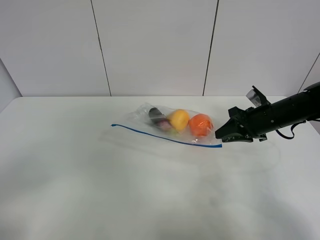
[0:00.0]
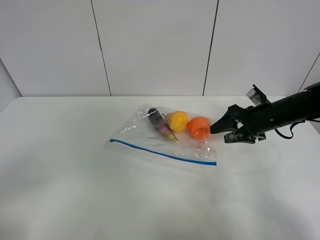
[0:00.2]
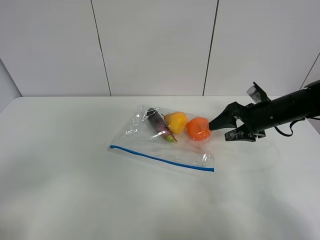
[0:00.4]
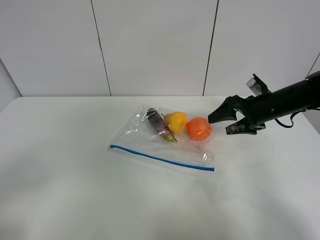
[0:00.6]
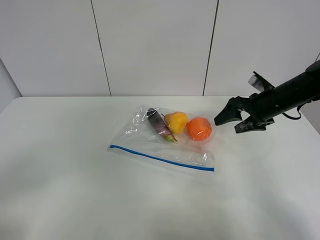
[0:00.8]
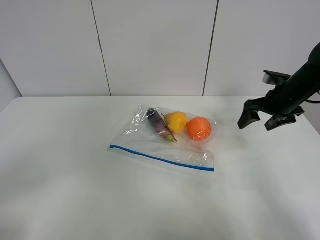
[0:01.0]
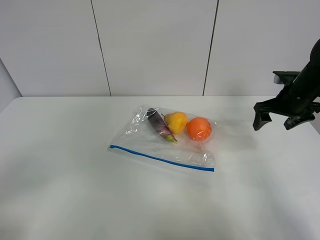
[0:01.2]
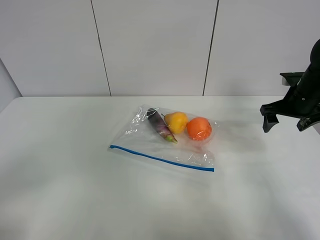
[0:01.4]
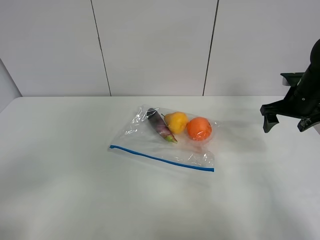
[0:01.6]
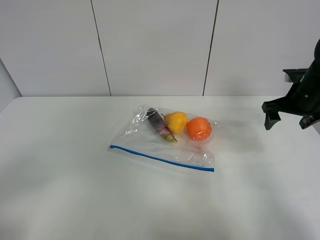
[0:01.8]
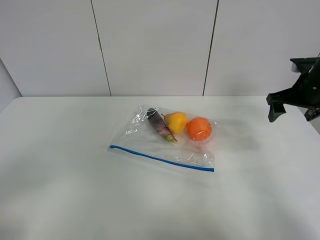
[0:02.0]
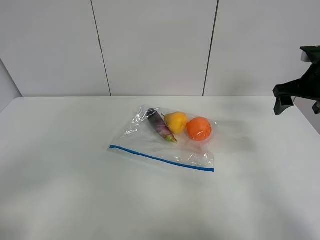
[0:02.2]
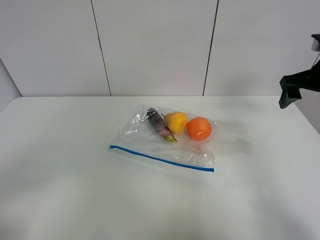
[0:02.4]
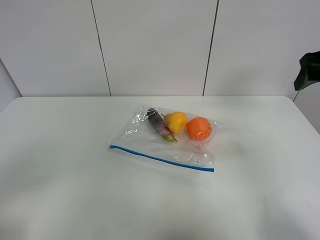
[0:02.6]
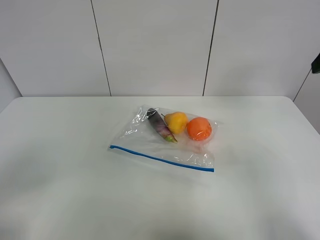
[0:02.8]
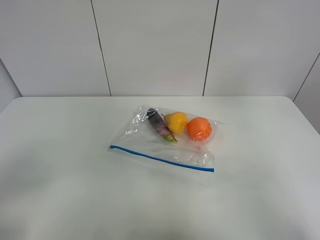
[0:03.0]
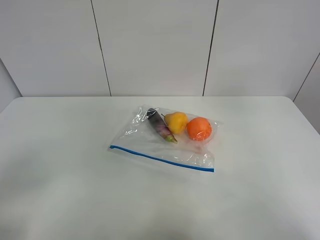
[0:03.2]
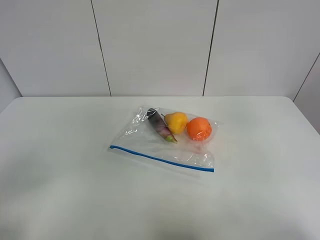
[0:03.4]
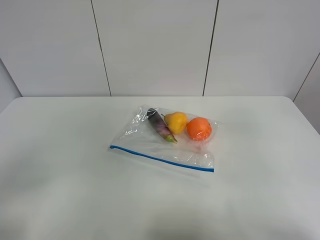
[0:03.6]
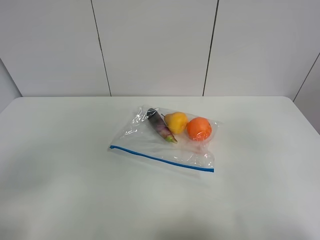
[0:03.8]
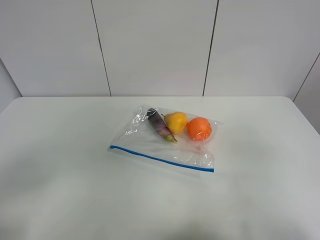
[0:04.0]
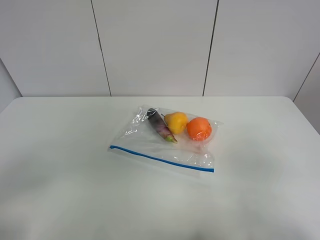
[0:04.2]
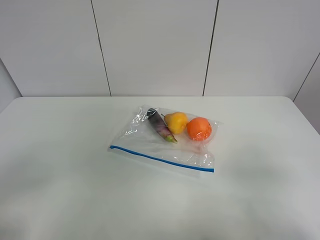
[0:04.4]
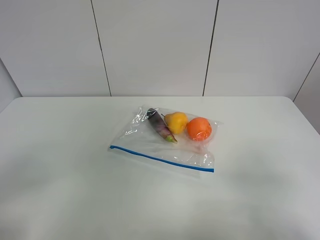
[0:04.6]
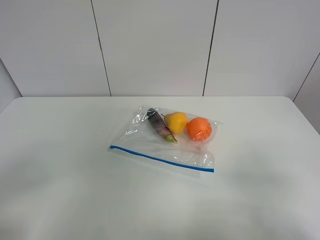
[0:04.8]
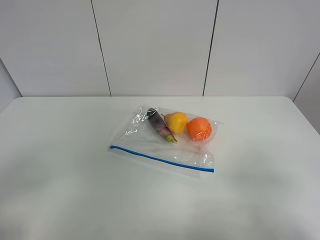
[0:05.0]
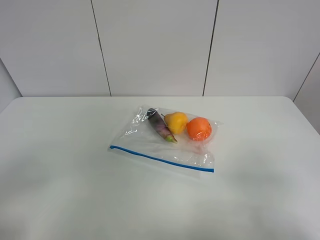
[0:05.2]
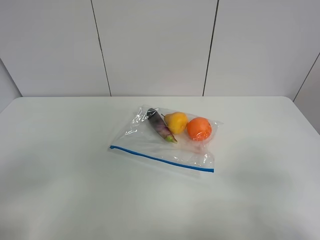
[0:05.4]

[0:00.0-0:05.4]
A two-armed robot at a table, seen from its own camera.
0:00.0 to 0:01.4: The right gripper shifts some 5 cm to the right, and opens its fingers.
0:01.4 to 0:02.8: The right gripper heads upward and backward, covering about 20 cm.
0:02.8 to 0:04.0: The right gripper heads backward, covering roughly 20 cm.

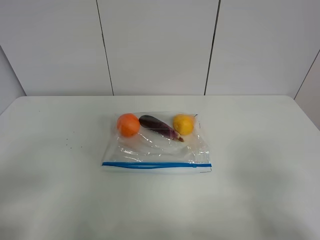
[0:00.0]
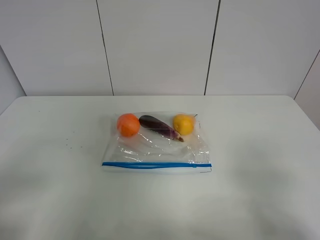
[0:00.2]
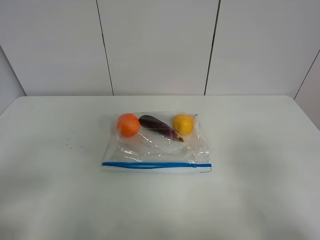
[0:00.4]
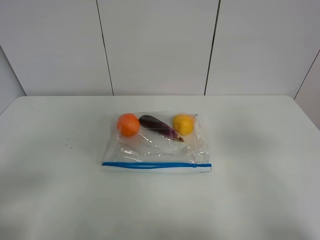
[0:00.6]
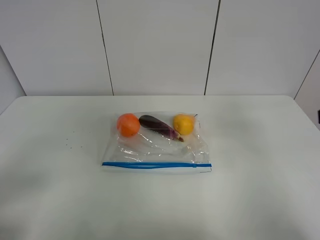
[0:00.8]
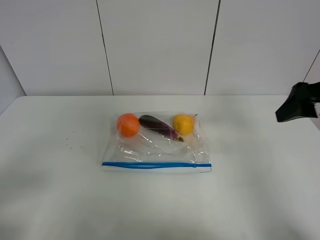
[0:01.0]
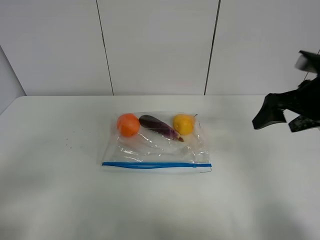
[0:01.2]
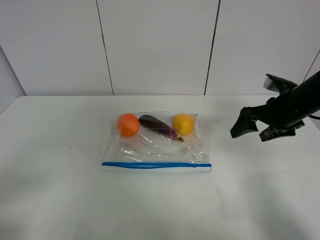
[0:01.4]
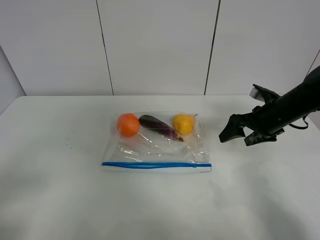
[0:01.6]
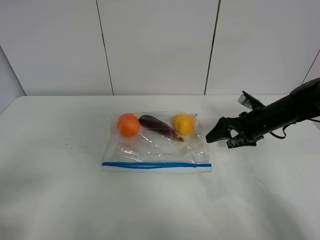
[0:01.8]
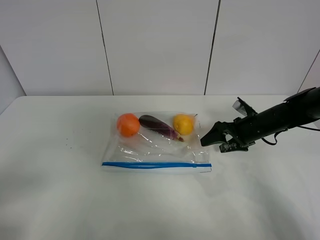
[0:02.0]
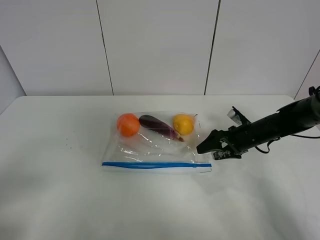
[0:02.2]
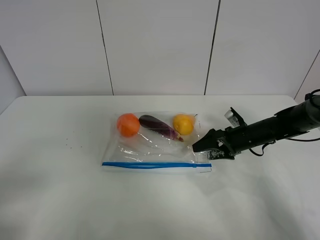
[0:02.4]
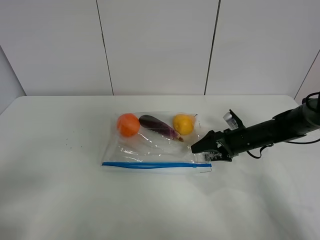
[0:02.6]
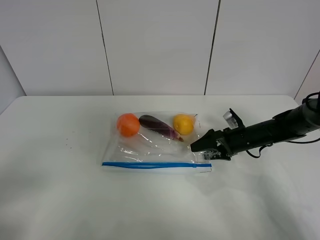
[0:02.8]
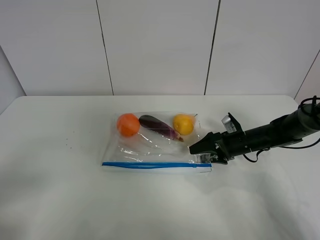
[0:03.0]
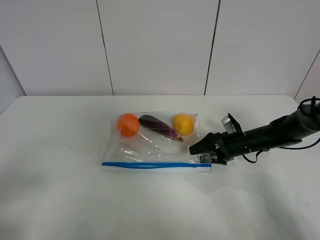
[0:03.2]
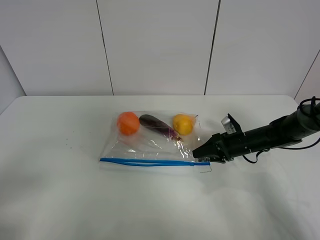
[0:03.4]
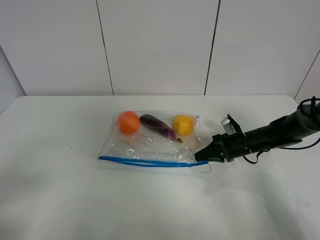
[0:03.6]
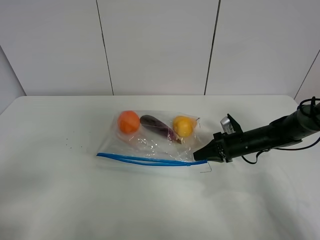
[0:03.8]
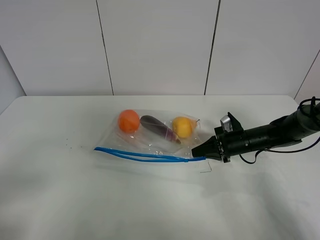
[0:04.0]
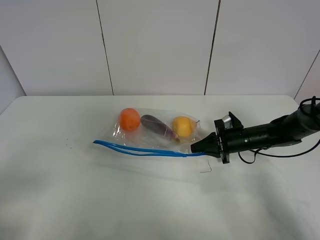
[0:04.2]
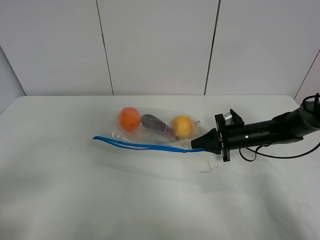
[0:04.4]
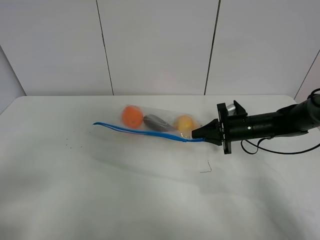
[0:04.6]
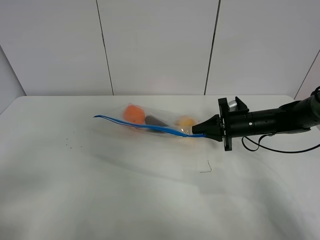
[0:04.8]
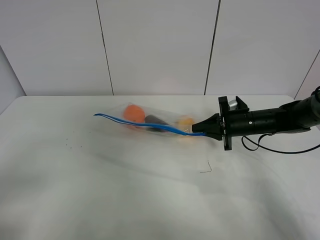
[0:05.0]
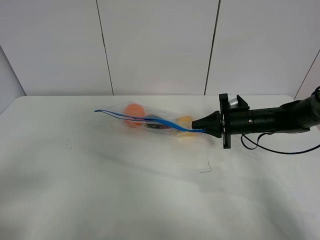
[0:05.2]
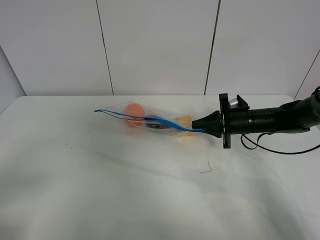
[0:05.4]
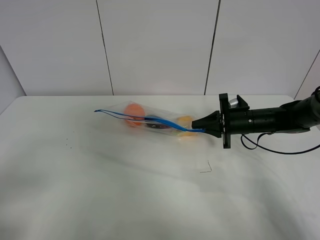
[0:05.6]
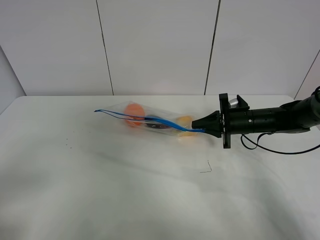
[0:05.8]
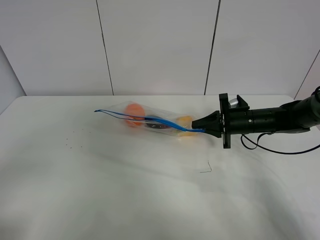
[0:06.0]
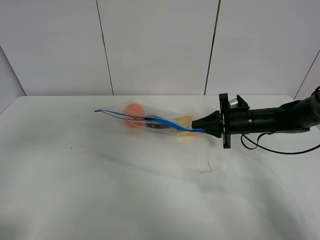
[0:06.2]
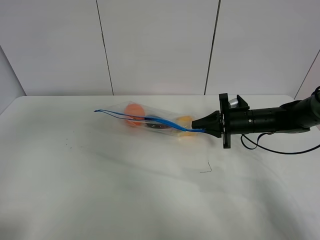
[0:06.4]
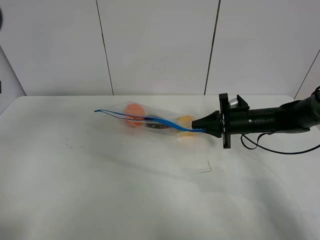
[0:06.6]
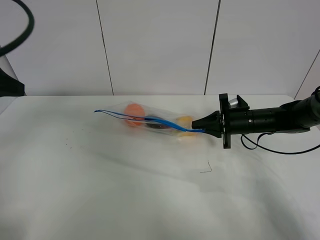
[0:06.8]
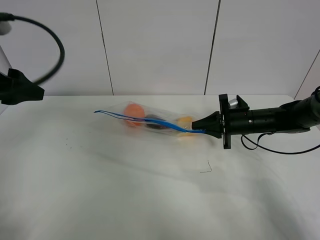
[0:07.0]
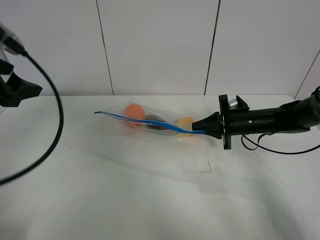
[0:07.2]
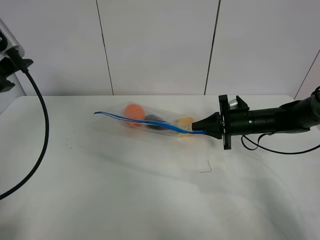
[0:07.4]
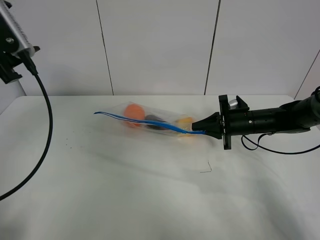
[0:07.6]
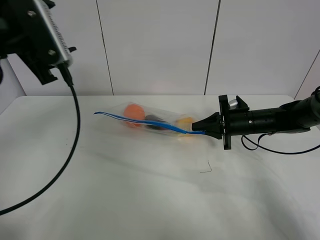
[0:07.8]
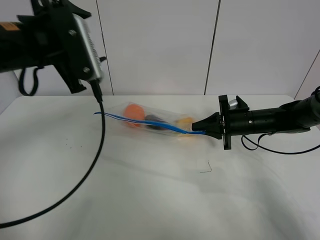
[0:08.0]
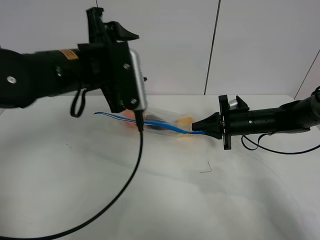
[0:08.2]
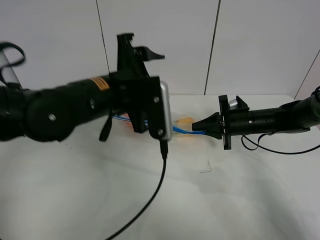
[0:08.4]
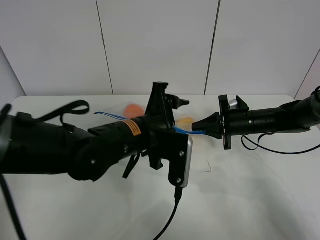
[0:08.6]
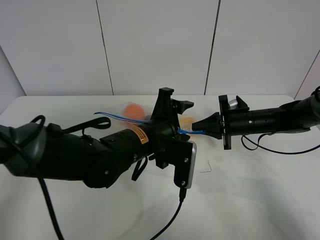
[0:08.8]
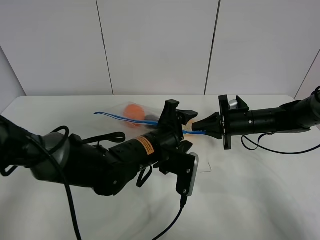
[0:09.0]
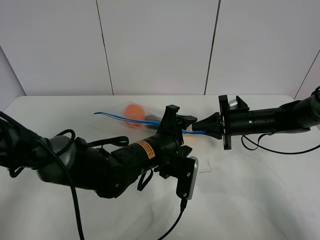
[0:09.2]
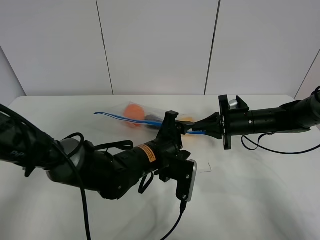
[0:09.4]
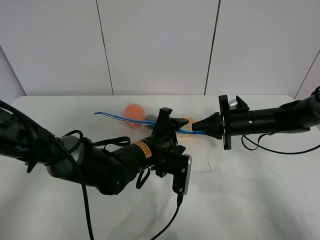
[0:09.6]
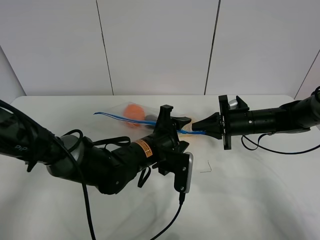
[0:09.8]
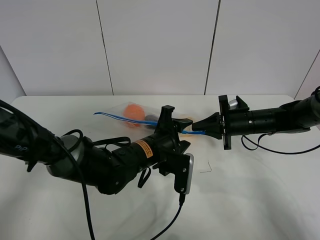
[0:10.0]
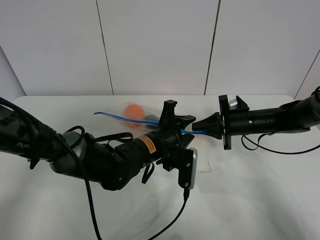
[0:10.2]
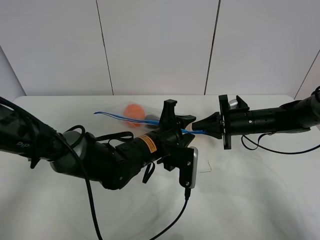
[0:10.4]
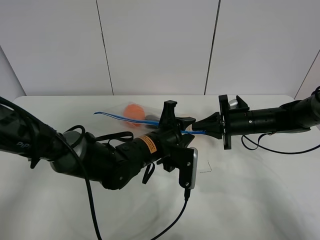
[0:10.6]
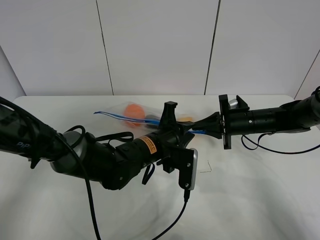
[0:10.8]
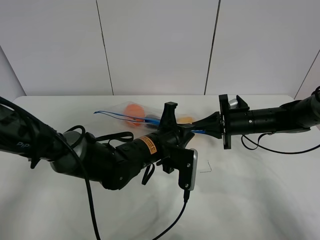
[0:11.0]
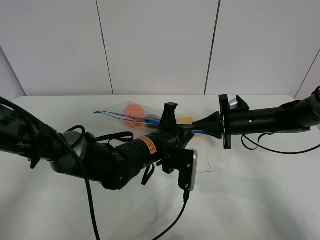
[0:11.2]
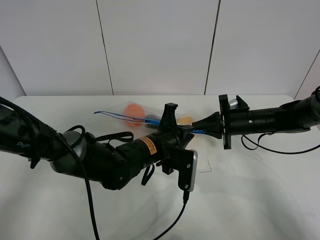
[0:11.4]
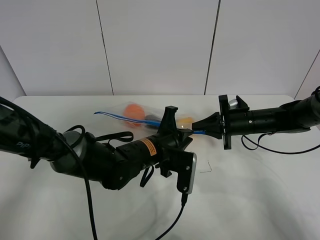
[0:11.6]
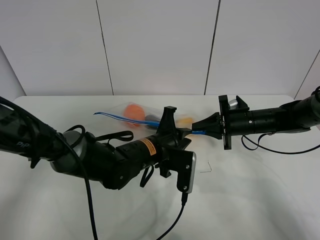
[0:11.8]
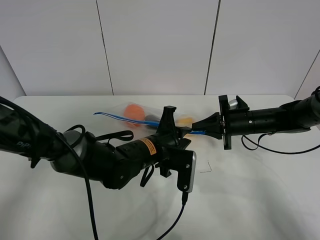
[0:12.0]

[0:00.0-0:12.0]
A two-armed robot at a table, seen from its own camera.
Step, 0:00.0 to 0:03.6: Grasp the fruit bag with right gripper.
Step, 0:03.8 to 0:05.6: Lift the fruit bag with your right gripper.
0:00.0 to 0:01.6: The right gripper heads forward, covering some 35 cm.
0:01.6 to 0:03.0: The right gripper heads downward, covering some 10 cm.
0:03.0 to 0:04.4: The right gripper closes its fingers.
0:04.4 to 0:06.0: The grippers stay close to where they were, moving slightly.
0:06.0 to 0:07.6: The left gripper shifts about 25 cm forward.
0:07.6 to 0:09.0: The left gripper is displaced to the right and downward by approximately 35 cm.
0:09.0 to 0:10.4: The left gripper closes its fingers.
0:10.4 to 0:12.0: The grippers stay close to where they were, moving slightly.

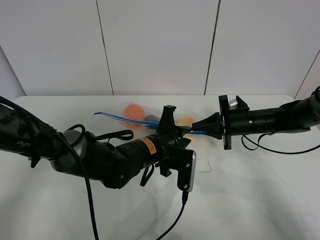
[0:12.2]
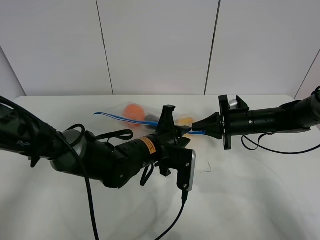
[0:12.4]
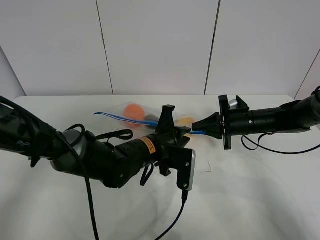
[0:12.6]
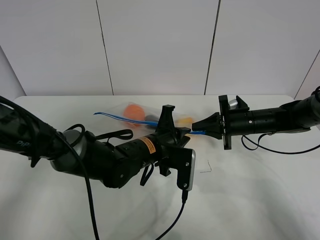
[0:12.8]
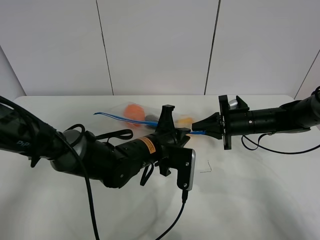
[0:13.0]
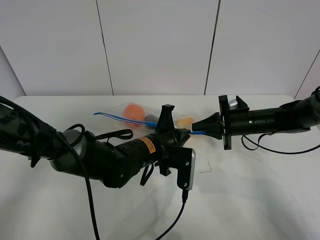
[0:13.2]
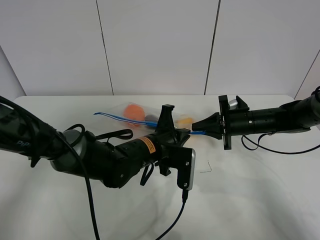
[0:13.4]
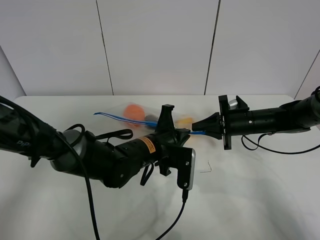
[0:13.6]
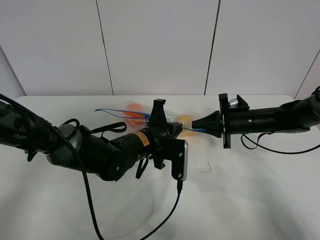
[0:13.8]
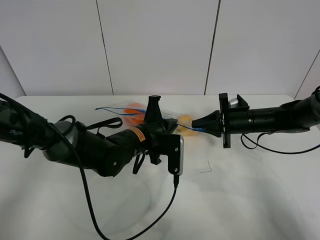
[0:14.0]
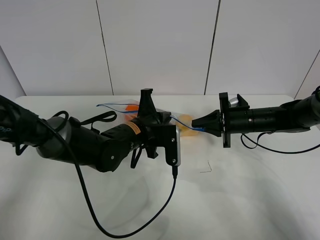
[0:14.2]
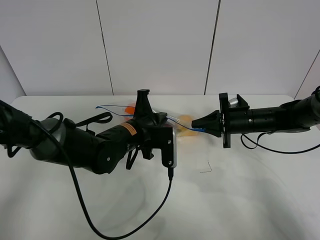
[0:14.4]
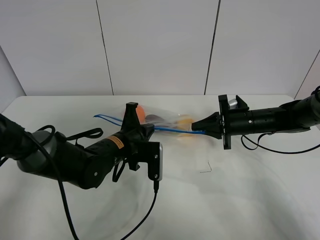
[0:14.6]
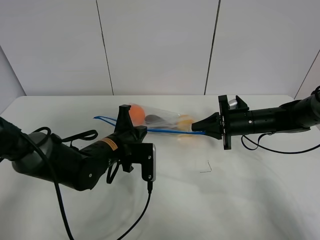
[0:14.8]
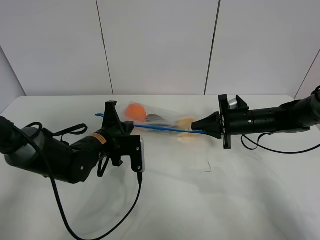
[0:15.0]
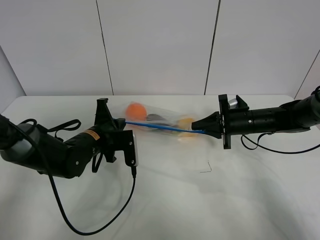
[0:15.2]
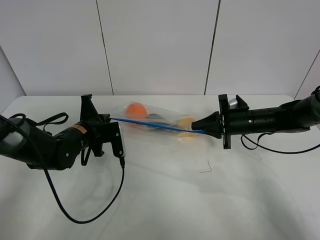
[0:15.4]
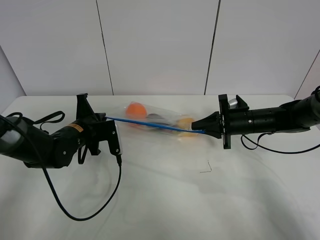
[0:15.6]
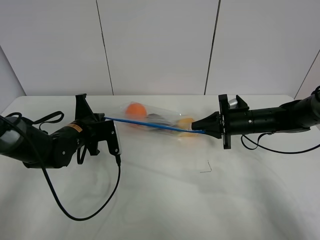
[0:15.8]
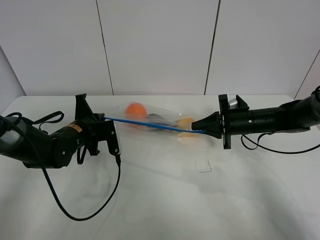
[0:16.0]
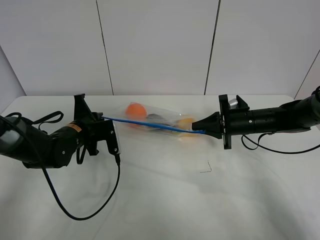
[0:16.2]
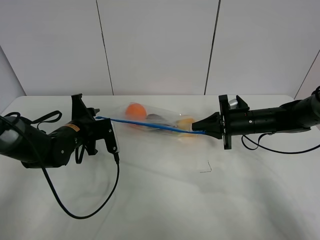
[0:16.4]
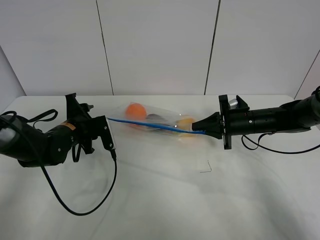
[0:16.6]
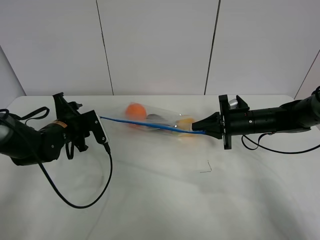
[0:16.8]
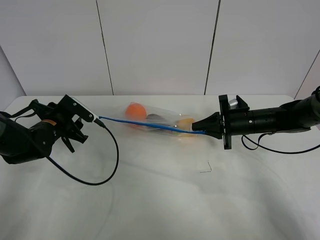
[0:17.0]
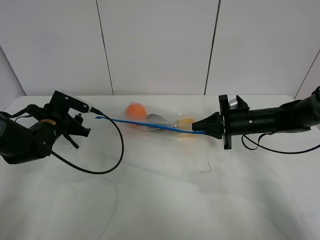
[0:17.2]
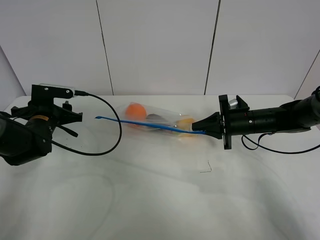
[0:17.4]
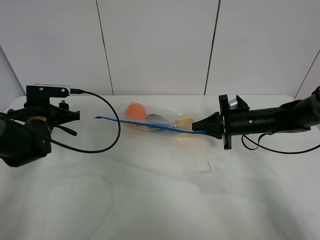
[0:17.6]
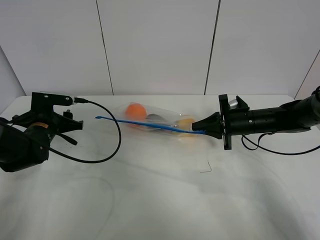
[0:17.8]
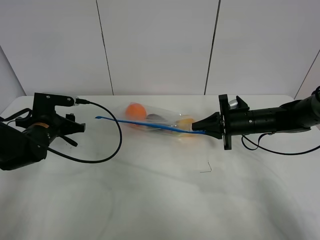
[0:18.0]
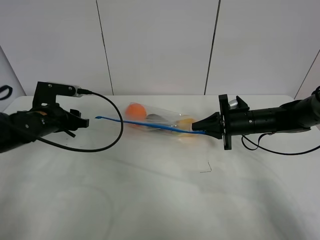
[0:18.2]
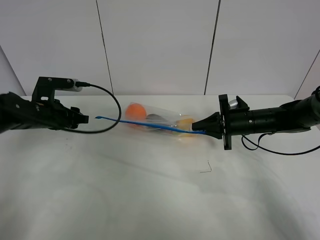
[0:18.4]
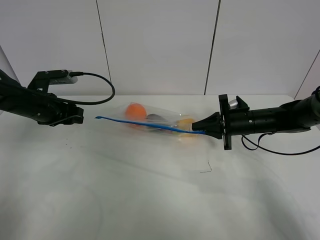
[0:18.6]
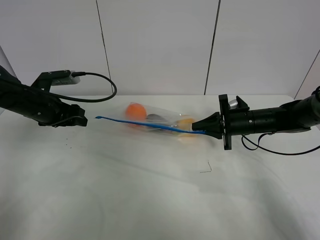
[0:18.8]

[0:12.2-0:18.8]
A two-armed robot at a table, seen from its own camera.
Step, 0:12.2 to 0:16.8: Pull the fruit bag with left gripper.
0:12.2 to 0:13.8: The left gripper closes up.
0:13.8 to 0:15.4: The left gripper goes approximately 15 cm to the left.
0:15.4 to 0:17.2: The left gripper goes approximately 10 cm to the left, and opens its fingers.
0:17.2 to 0:18.8: The left gripper travels upward by approximately 5 cm.
